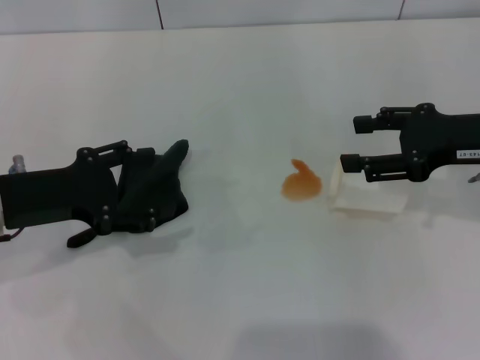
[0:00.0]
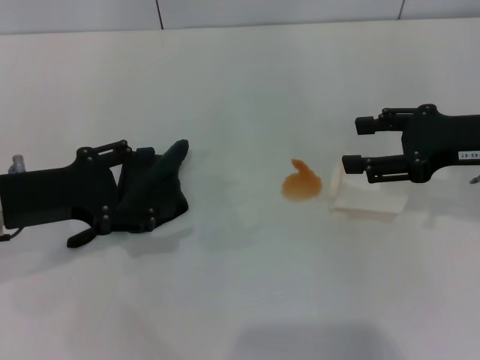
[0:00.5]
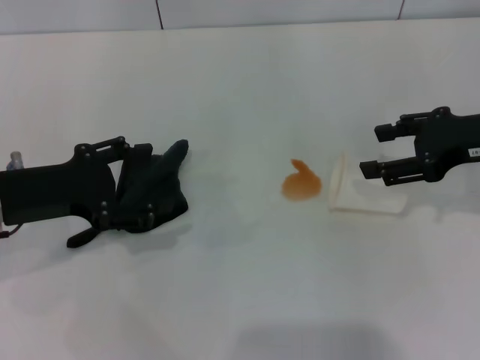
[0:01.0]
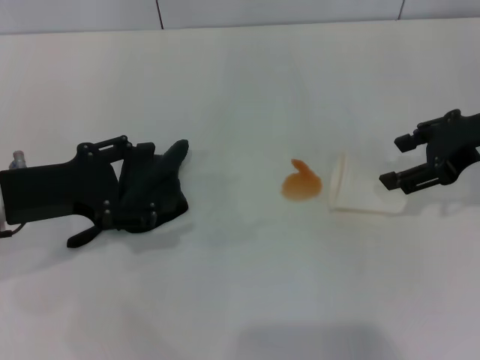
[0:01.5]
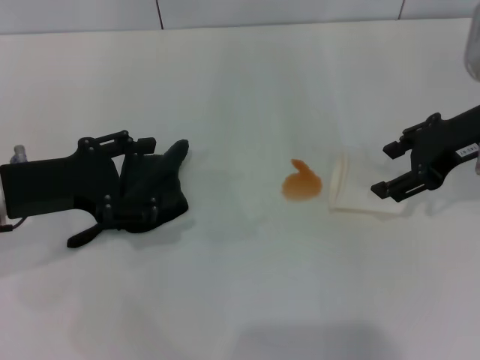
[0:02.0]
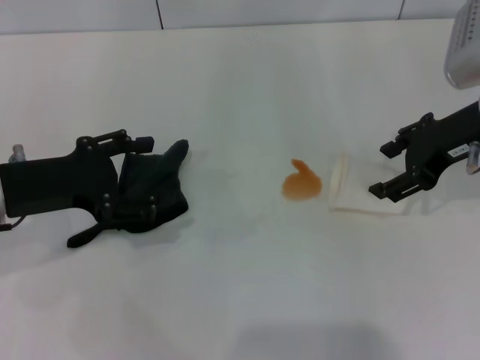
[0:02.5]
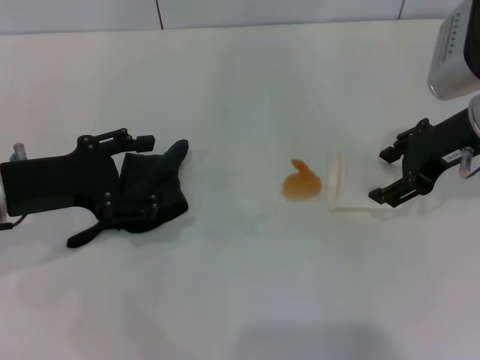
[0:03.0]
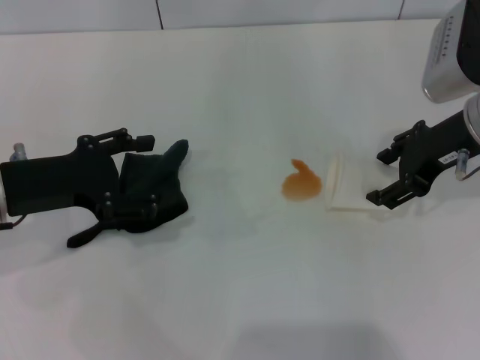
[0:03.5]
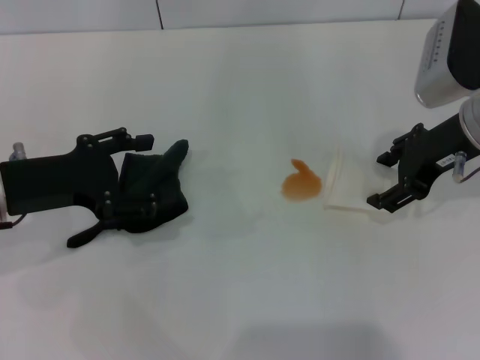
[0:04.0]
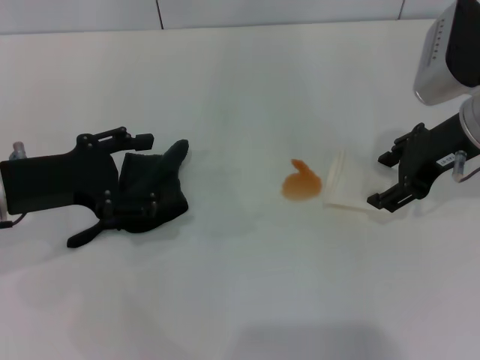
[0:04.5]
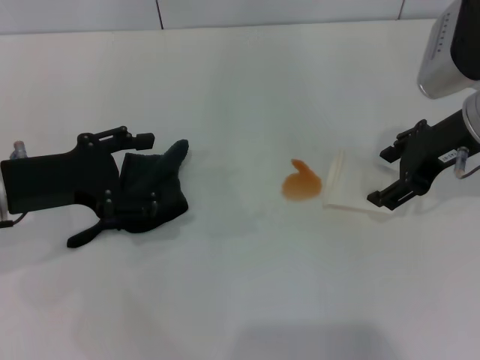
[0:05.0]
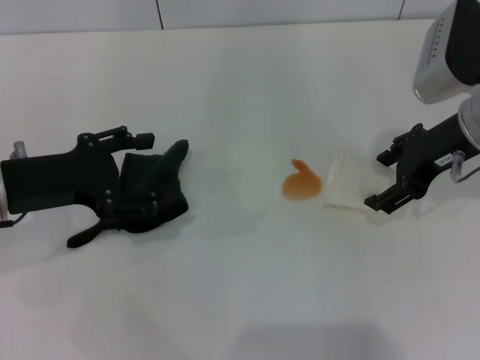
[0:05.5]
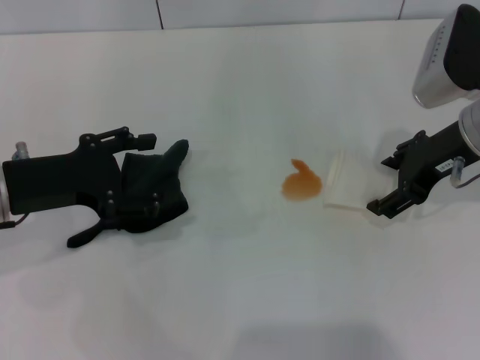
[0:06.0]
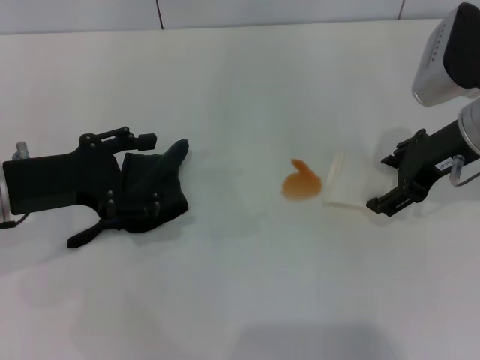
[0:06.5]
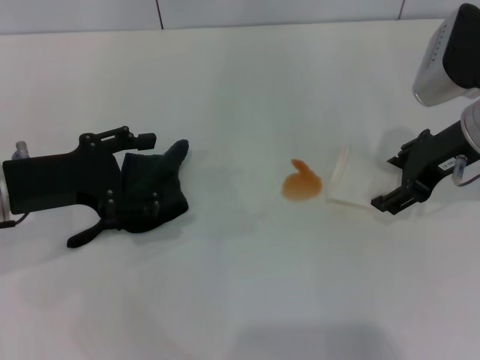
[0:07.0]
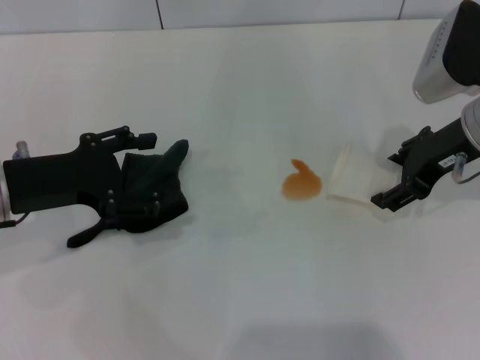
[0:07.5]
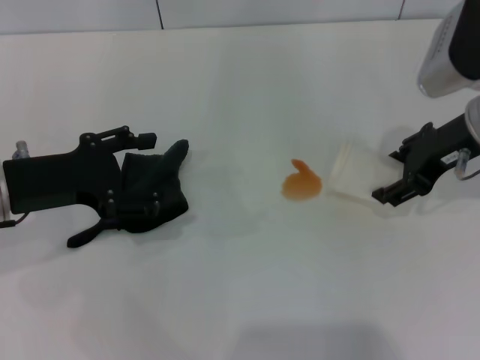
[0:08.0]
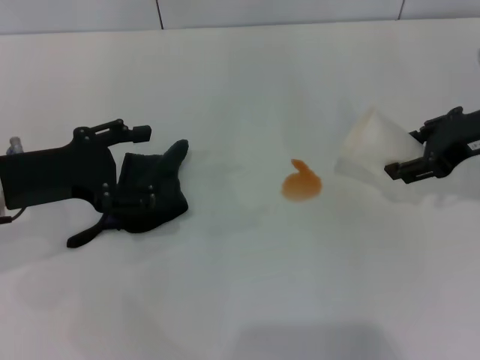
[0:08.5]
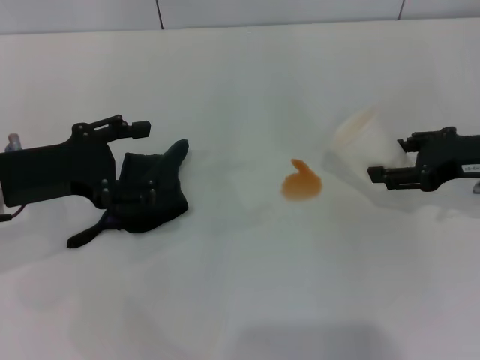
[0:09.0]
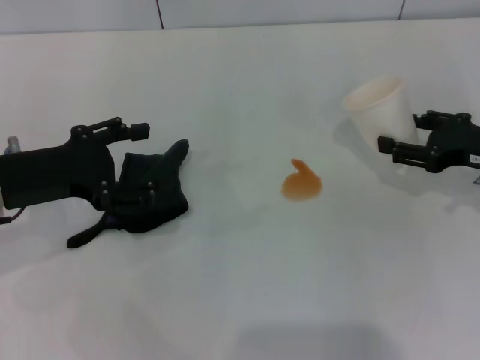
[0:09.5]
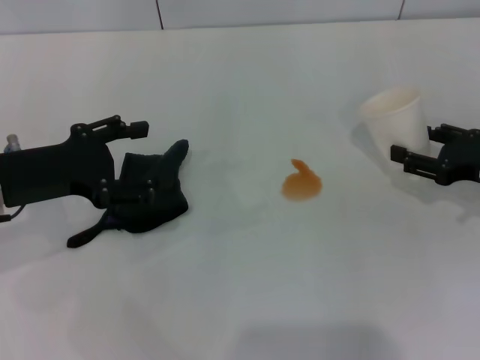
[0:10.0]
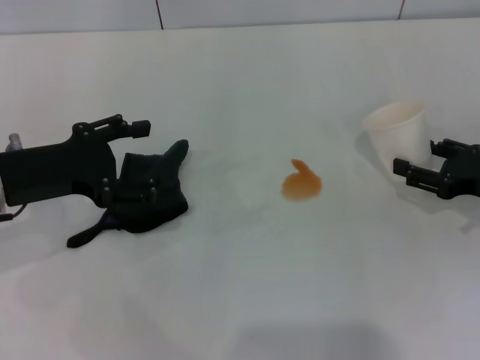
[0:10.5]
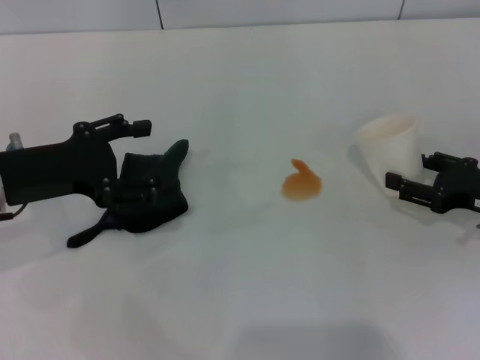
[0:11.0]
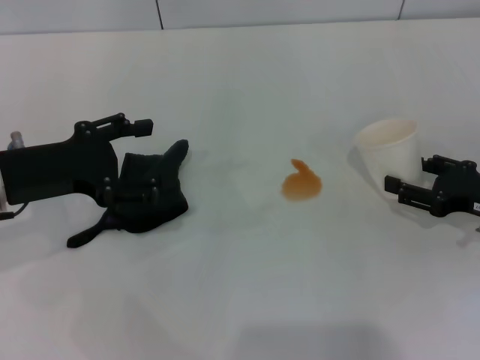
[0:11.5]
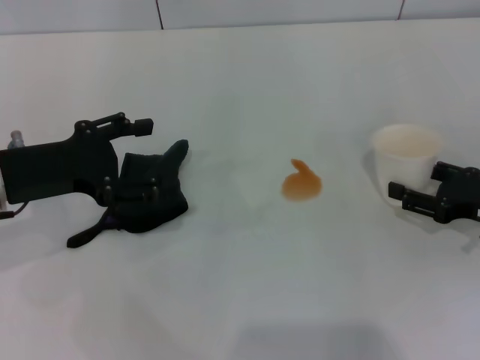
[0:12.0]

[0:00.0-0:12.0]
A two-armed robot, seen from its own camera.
Step, 0:00.0 to 0:07.0: Grasp the paper cup with the right gripper.
0:02.0 to 0:04.0: The grippers stay close to where they were, moving slightly.
0:04.0 to 0:06.0: The right gripper opens.
0:06.0 to 0:08.0: The right gripper closes up.
0:08.0 to 0:10.0: The right gripper shifts about 15 cm downward and to the right.
0:10.0 to 0:12.0: The grippers stay close to where they were, moving slightly.

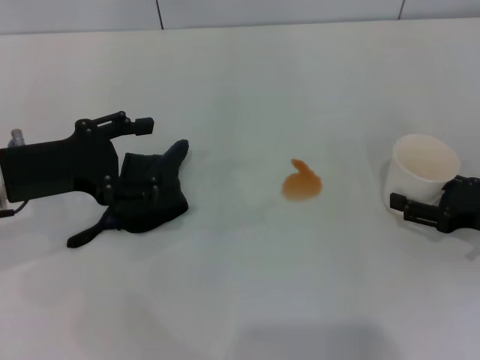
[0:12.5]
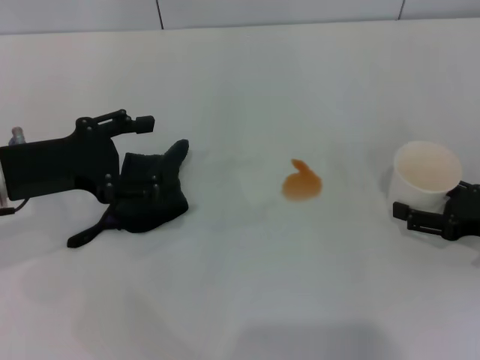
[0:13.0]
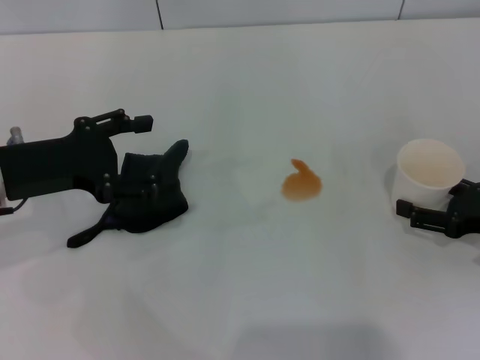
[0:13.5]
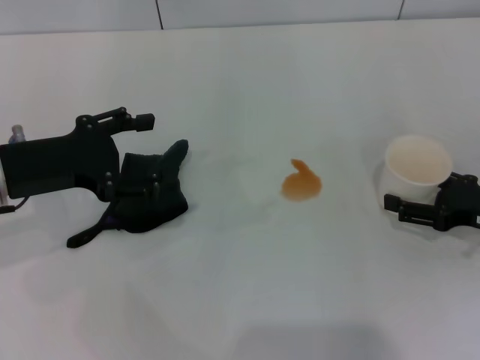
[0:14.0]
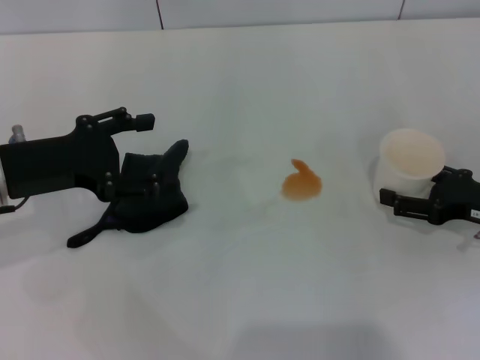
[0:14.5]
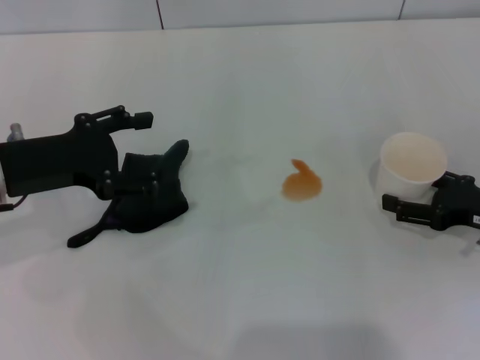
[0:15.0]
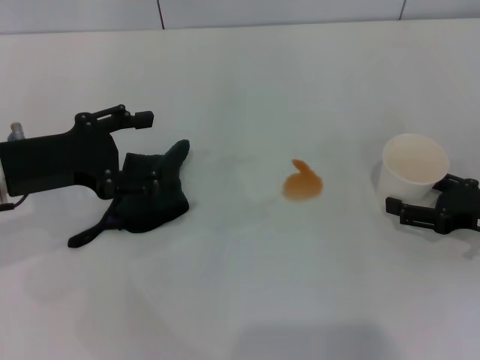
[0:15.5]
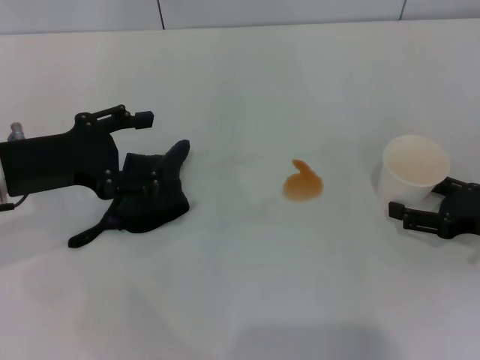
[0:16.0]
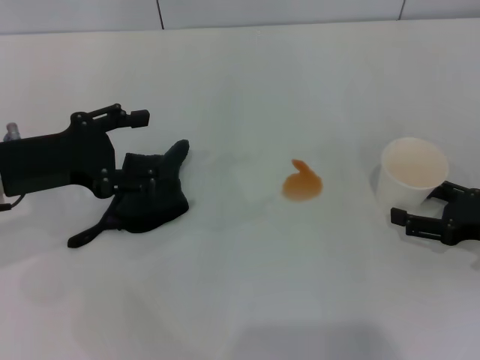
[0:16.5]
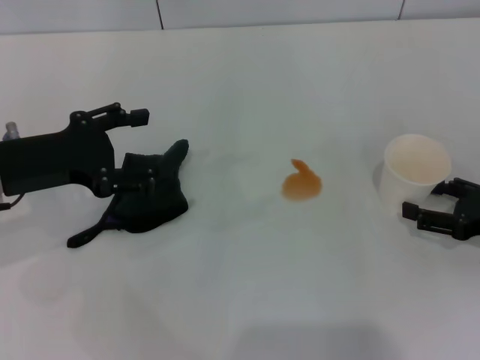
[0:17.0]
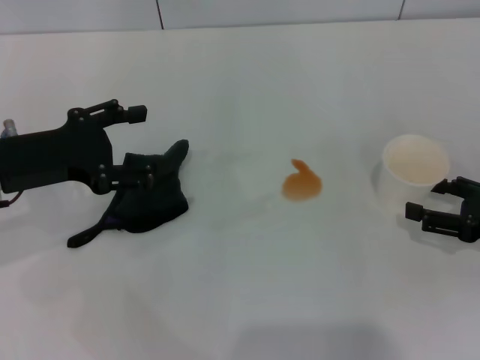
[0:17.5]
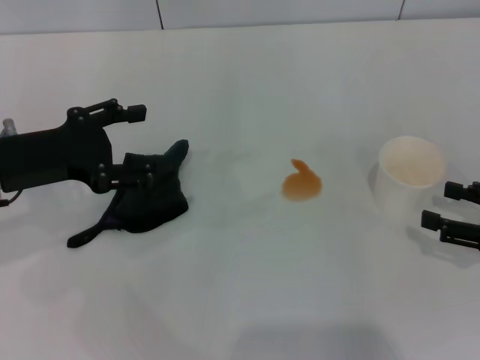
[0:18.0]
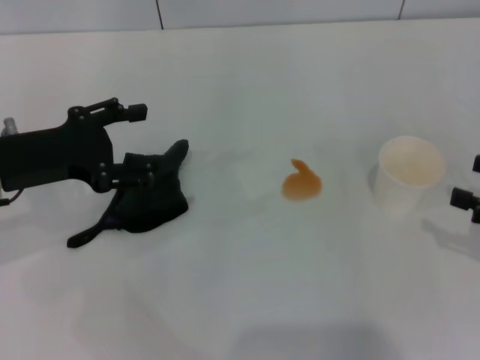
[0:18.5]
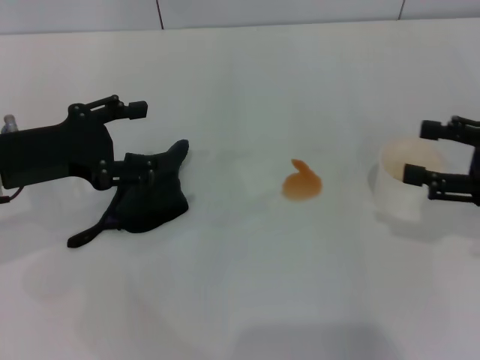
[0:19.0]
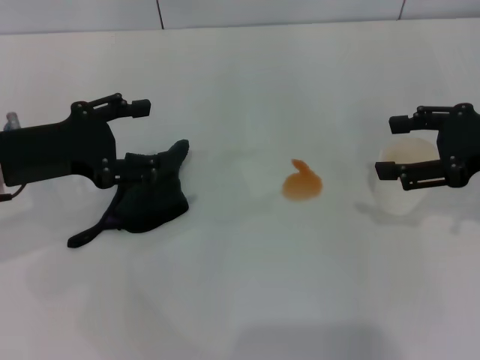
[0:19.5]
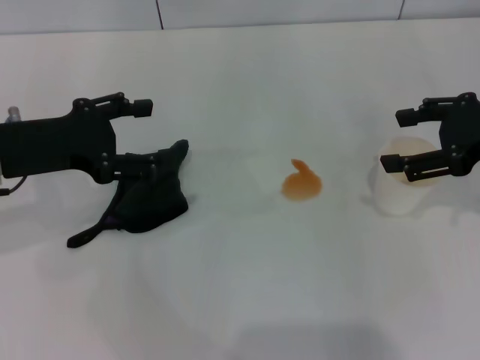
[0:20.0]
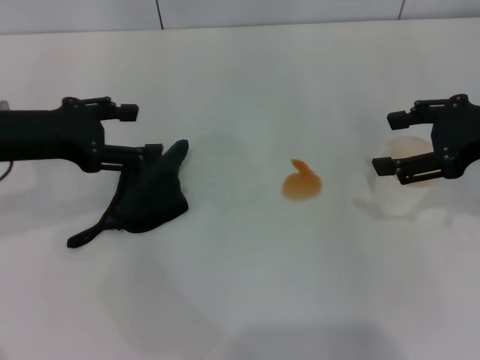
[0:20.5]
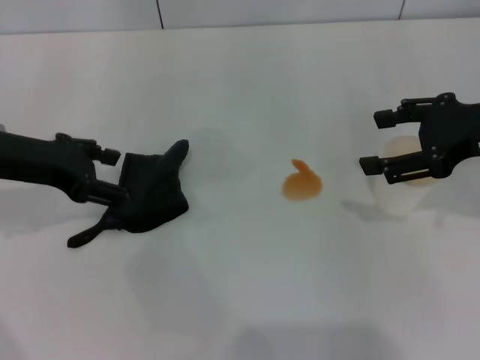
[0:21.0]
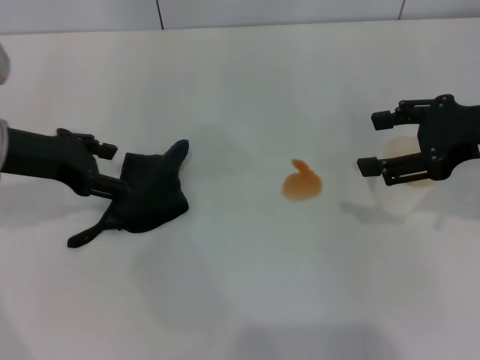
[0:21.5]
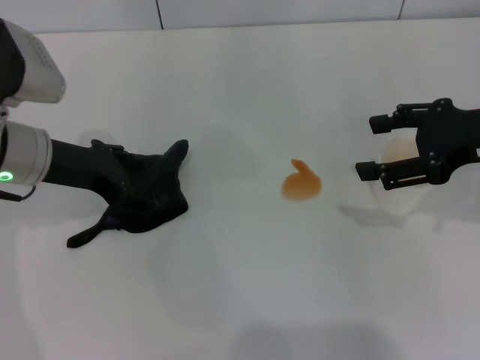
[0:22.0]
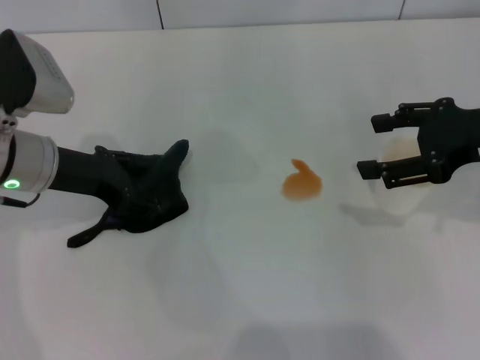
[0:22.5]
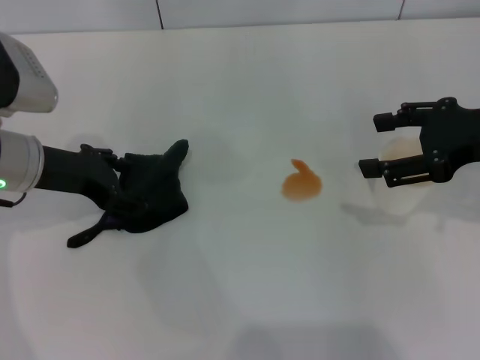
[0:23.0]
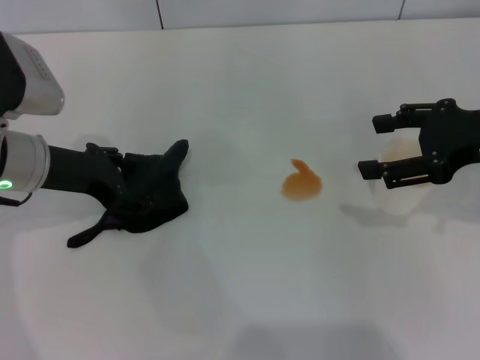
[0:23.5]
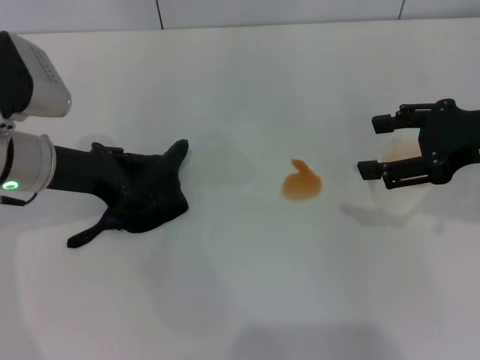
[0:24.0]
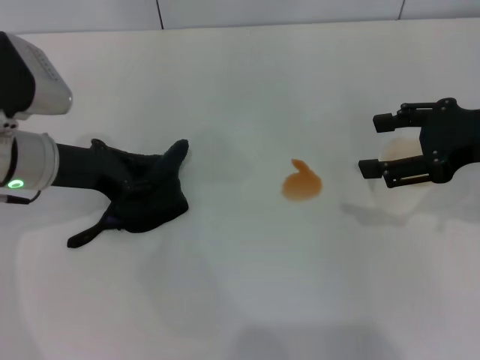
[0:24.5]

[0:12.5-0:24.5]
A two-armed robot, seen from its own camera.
Step, 0:12.5 to 0:18.0: Stand the paper cup upright with the right gripper.
0:12.5 to 0:14.5: The right gripper opens its fingers.
0:14.5 to 0:16.5: There are only small adjustments of the grippers.
0:16.5 to 0:18.5: The right gripper goes approximately 5 cm upward.
0:18.5 to 0:20.5: The right gripper heads forward, upward and to the left, covering about 15 cm.
0:20.5 to 0:22.5: The left gripper shifts by approximately 5 cm.
0:22.5 to 0:24.5: The left gripper closes.

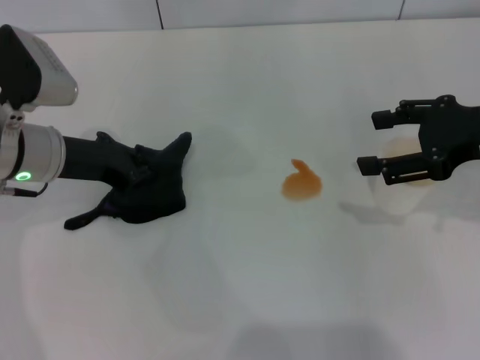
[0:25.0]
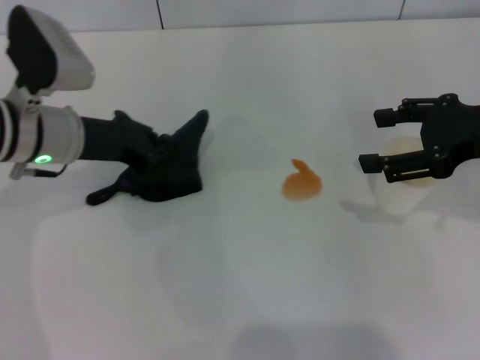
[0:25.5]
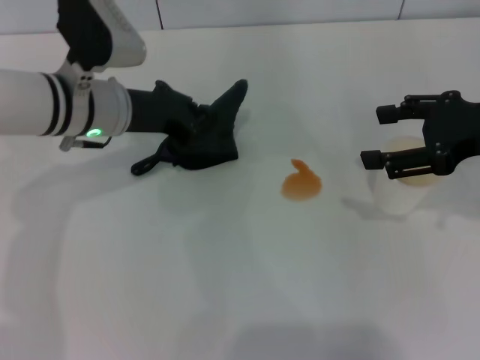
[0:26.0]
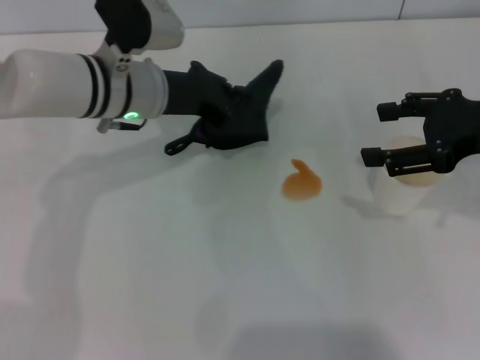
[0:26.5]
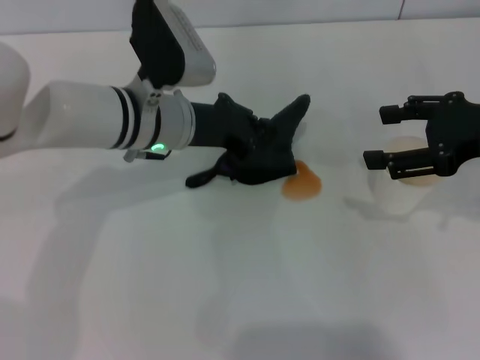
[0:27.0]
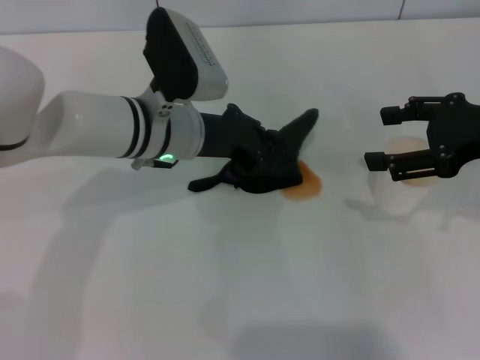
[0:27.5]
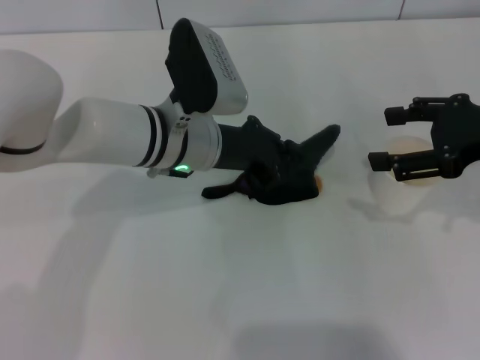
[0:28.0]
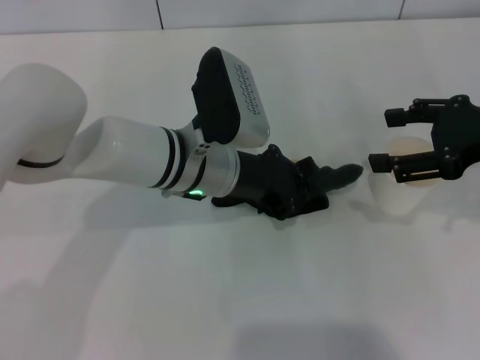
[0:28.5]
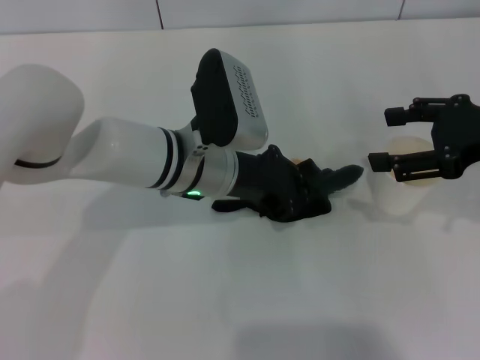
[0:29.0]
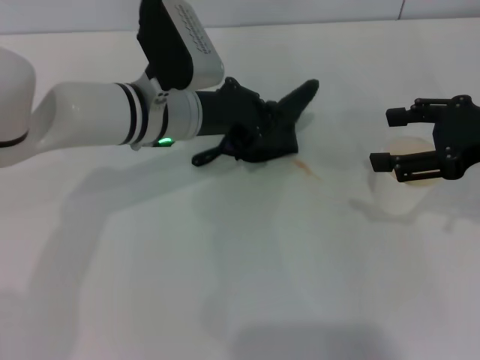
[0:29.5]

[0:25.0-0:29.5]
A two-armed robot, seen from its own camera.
0:25.0 to 0:27.0: The left gripper heads to the right, covering some 10 cm.
0:27.0 to 0:29.5: There are only small adjustments of the grippers.
